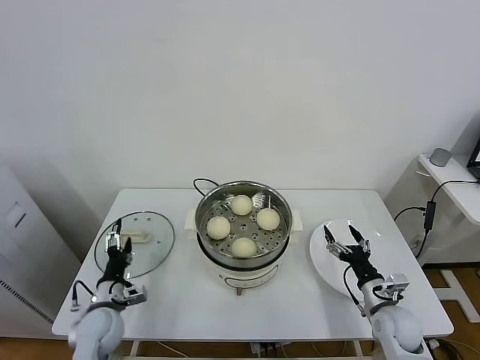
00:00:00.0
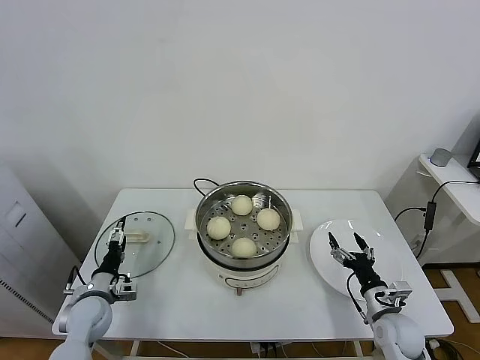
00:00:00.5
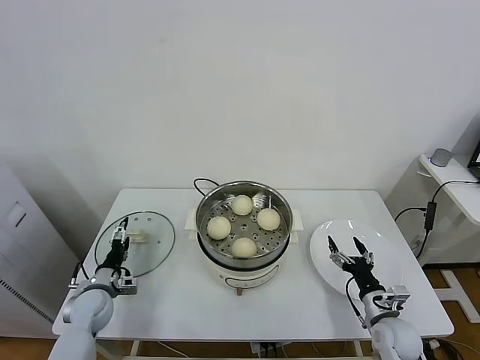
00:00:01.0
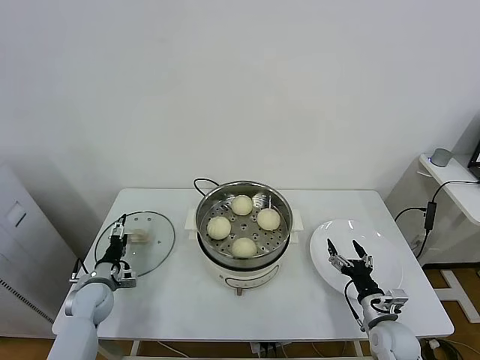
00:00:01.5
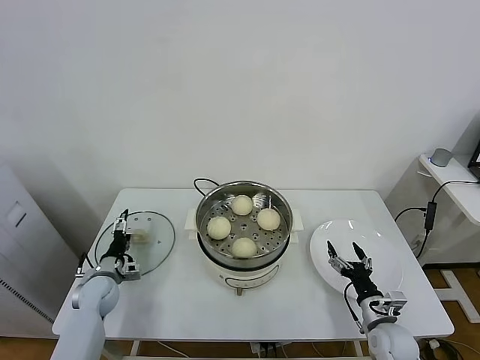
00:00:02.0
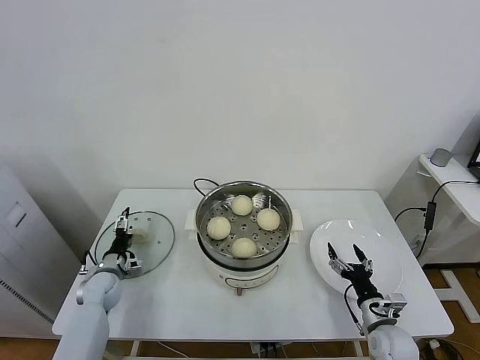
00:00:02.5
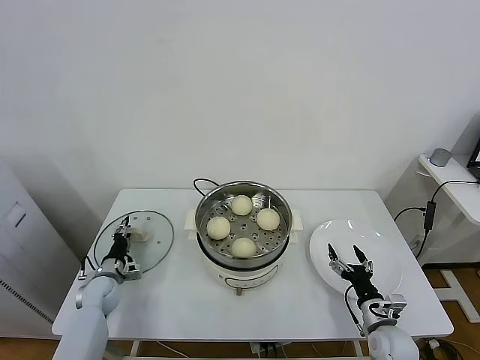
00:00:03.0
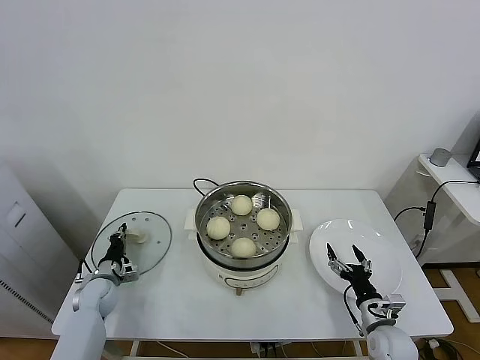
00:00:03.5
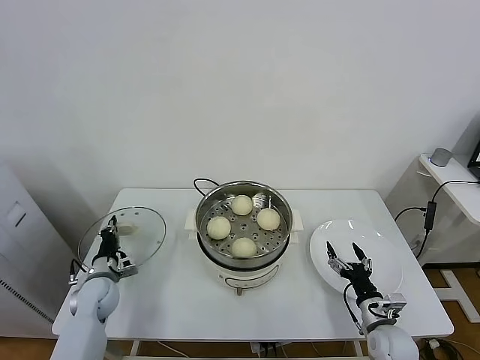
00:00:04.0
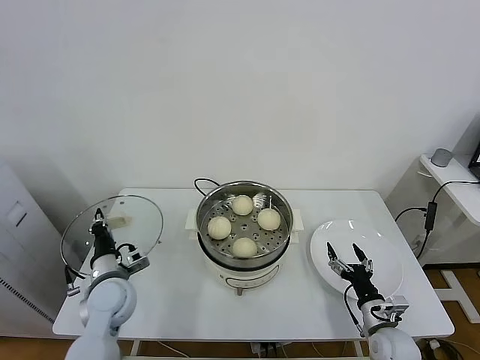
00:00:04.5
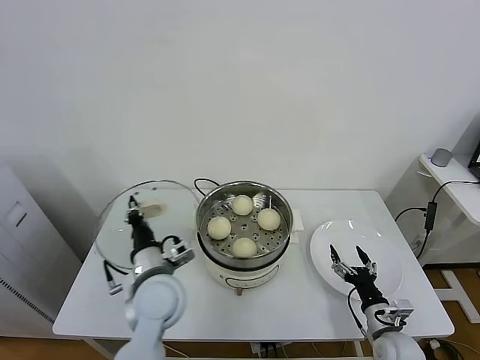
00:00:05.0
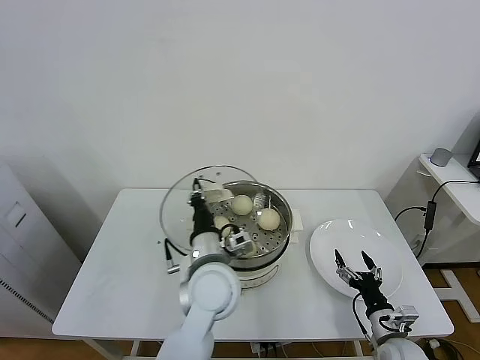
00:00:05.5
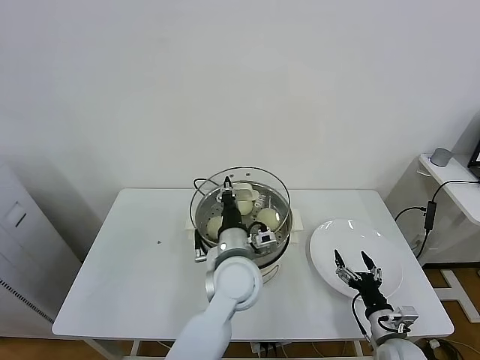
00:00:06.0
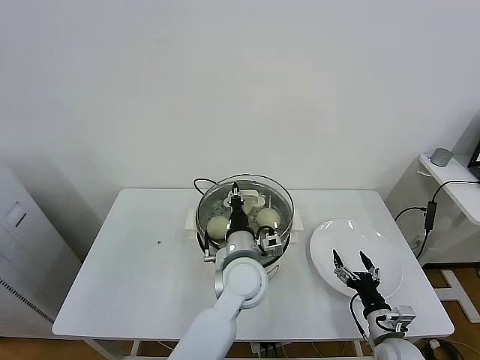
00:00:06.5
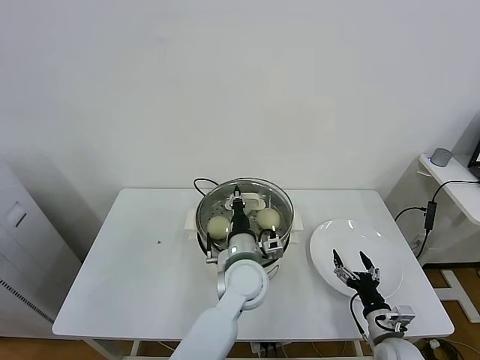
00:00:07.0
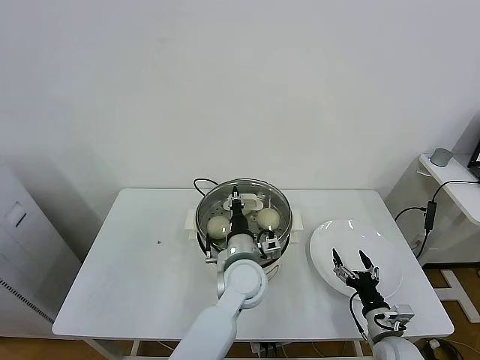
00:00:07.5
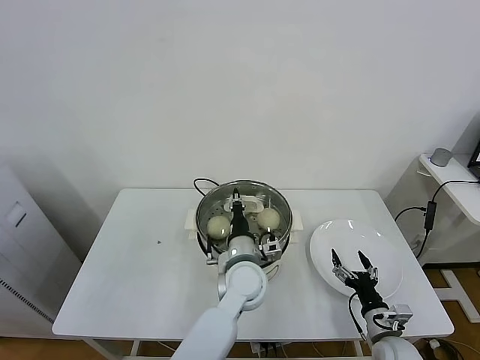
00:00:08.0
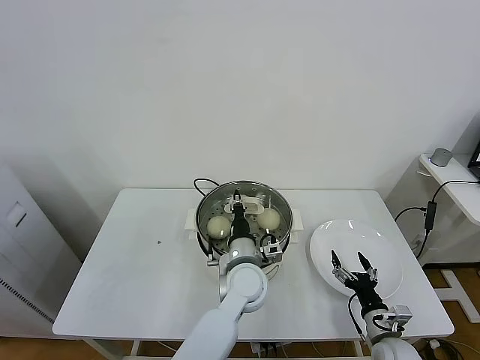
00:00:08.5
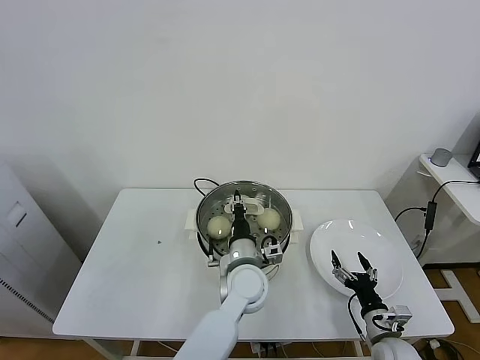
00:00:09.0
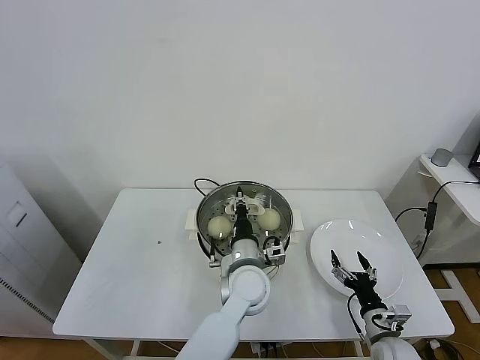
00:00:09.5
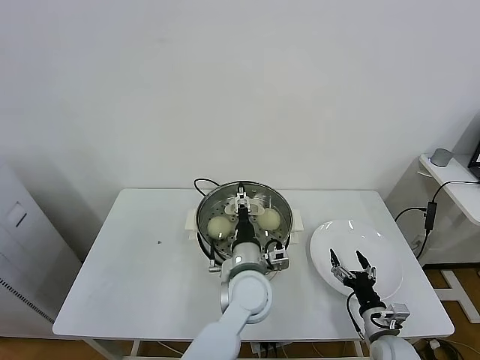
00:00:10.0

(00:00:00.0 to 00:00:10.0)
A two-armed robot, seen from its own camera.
Task of the whole recording: take steamed baozi put them in steamer.
Step, 00:00:00.0 - 00:00:03.0: Grasp the pot lid with left gripper.
Step, 00:00:04.0 - 00:00:09.5: Place the pot lid on the steamer with left gripper.
00:00:00.0 - 00:00:02.0: The left gripper moves forward and to the left, approximately 10 cm.
00:00:02.0 - 00:00:04.0: The left gripper closes up.
00:00:04.0 - 00:00:06.0: The left gripper heads to the right and upward, covering roughly 40 cm.
00:00:06.0 - 00:00:08.0: The left gripper travels downward by some 5 cm.
00:00:08.0 - 00:00:10.0: The left gripper opens.

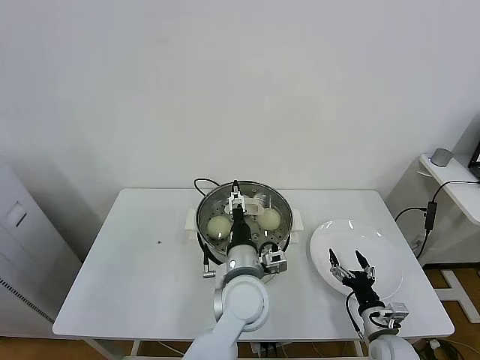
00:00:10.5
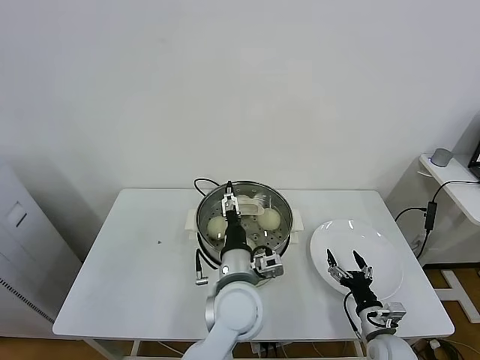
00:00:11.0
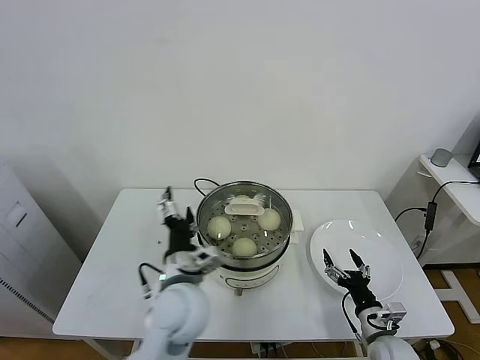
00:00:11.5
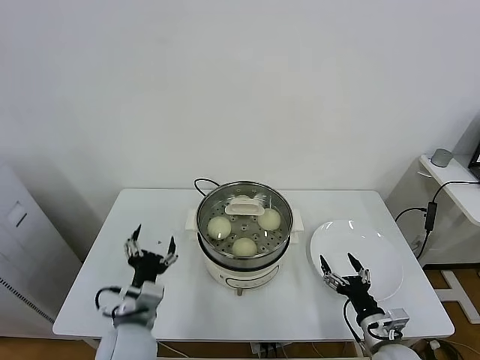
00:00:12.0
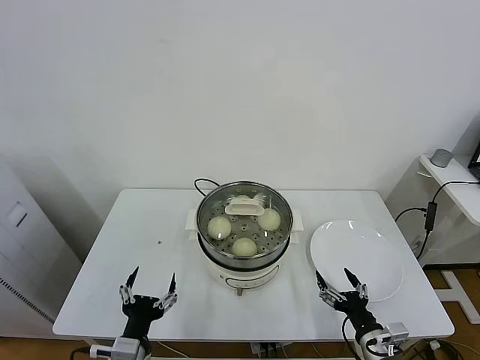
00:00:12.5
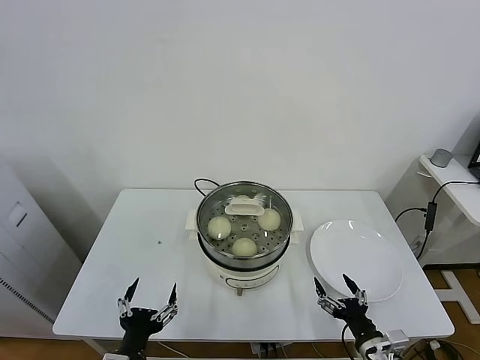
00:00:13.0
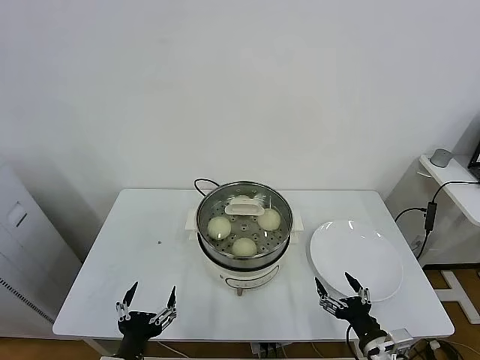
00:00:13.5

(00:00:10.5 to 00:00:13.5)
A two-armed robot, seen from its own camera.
Task of the whole recording: take steamed baozi put them in steamer.
00:00:10.5 - 00:00:12.0: The left gripper shifts approximately 20 cm to the left.
00:00:12.0 - 00:00:13.5: The left gripper goes about 15 cm backward; the right gripper travels backward by roughly 5 cm.

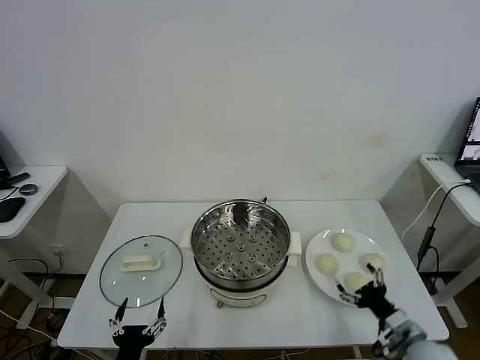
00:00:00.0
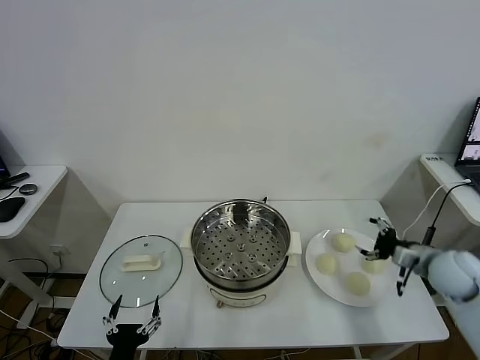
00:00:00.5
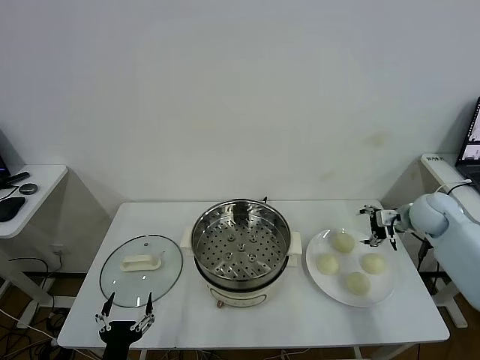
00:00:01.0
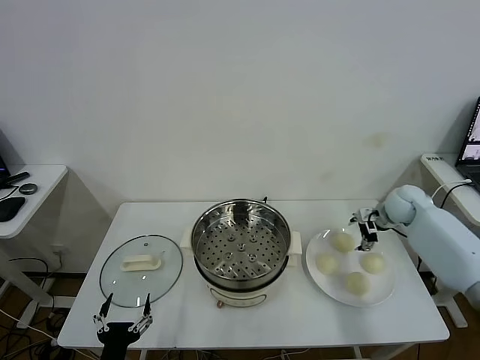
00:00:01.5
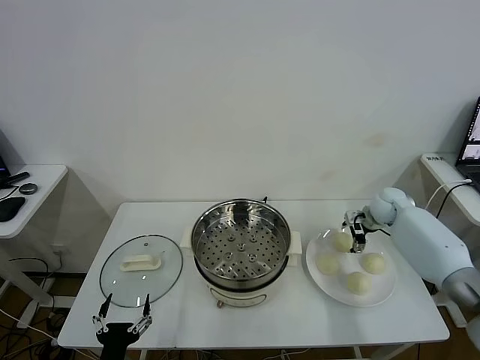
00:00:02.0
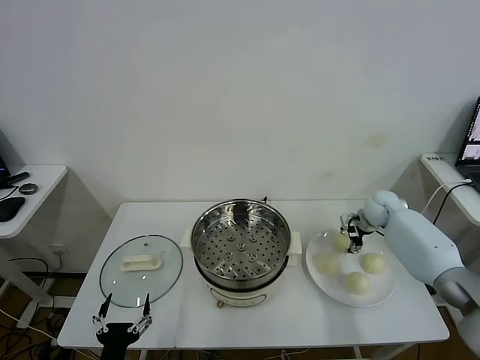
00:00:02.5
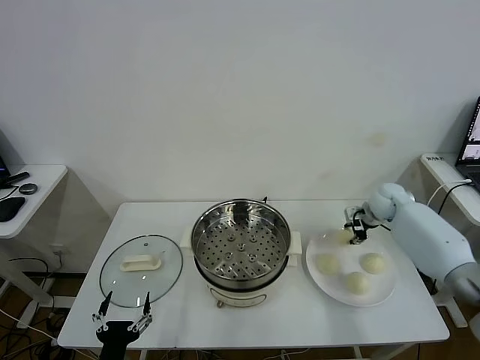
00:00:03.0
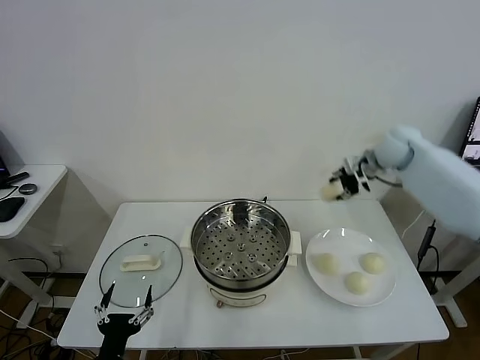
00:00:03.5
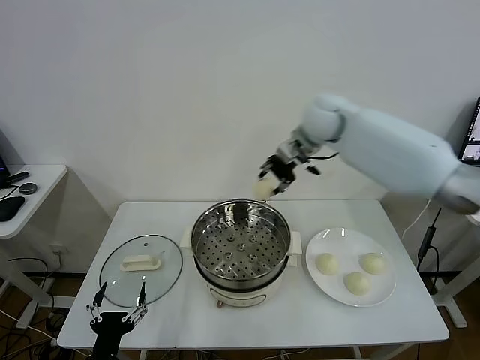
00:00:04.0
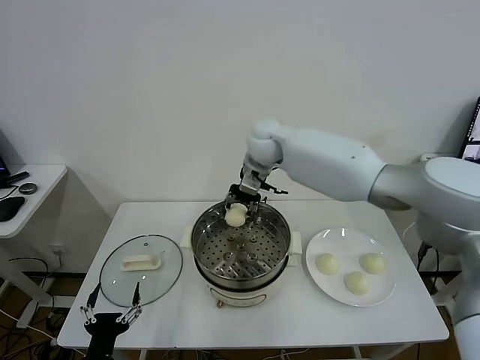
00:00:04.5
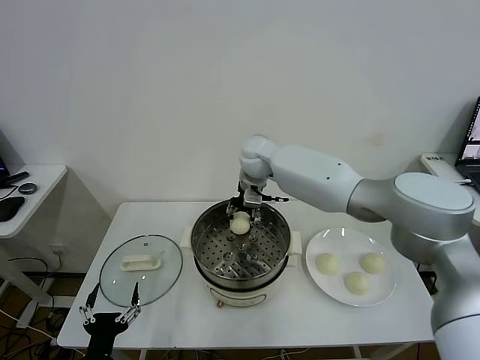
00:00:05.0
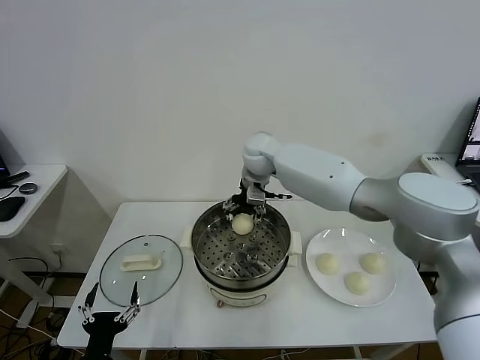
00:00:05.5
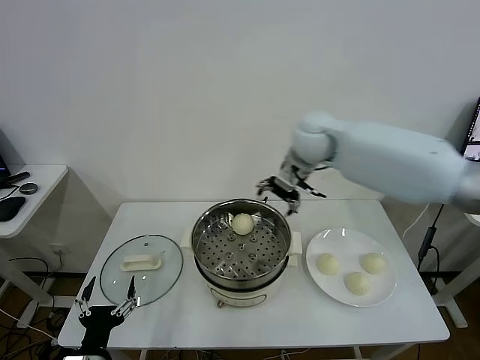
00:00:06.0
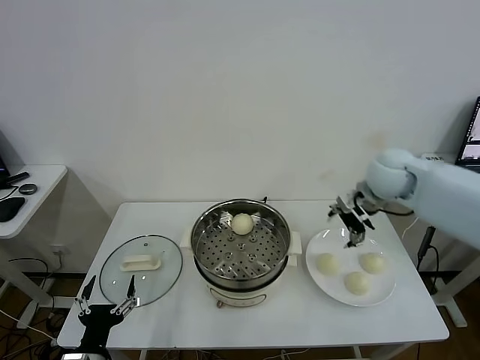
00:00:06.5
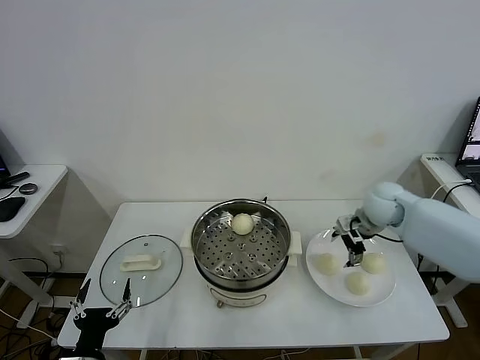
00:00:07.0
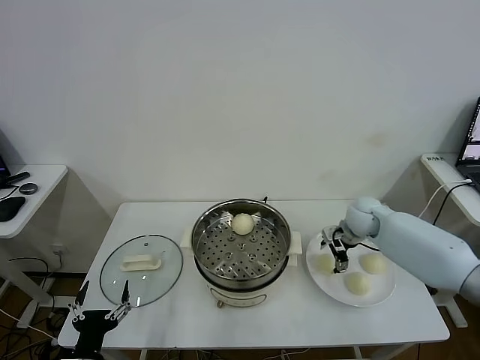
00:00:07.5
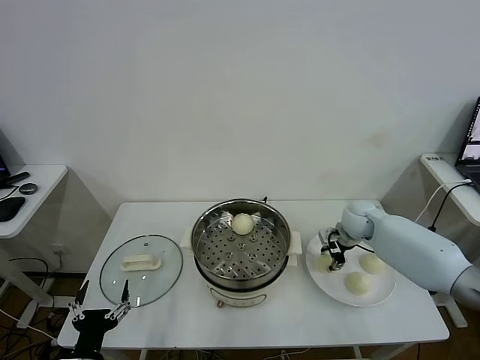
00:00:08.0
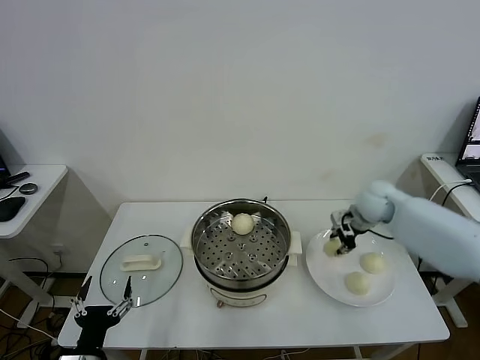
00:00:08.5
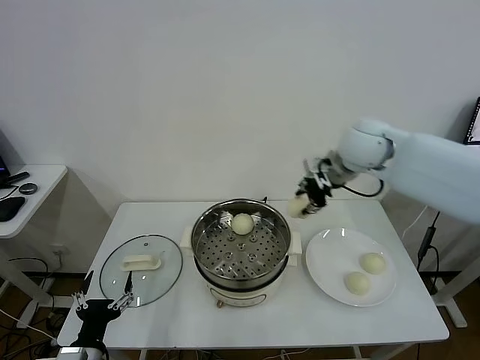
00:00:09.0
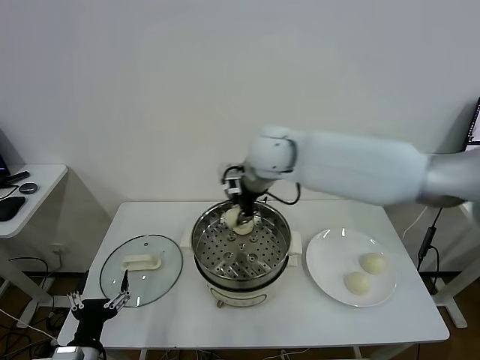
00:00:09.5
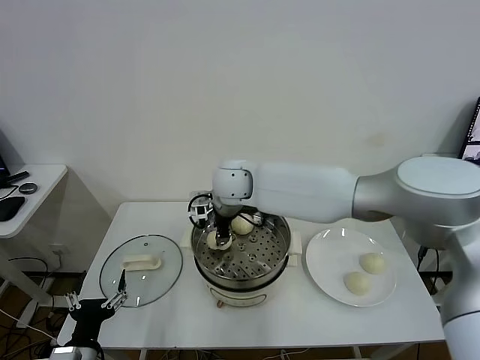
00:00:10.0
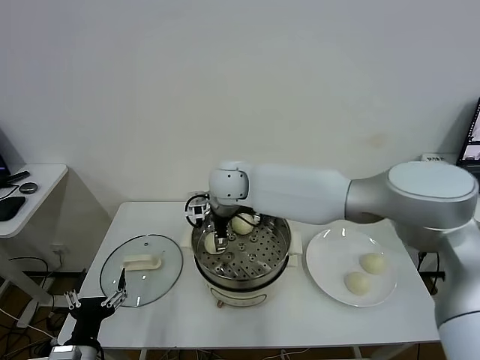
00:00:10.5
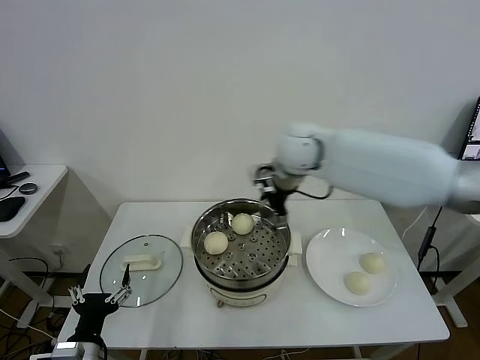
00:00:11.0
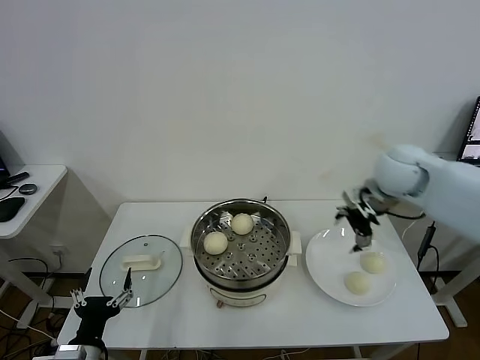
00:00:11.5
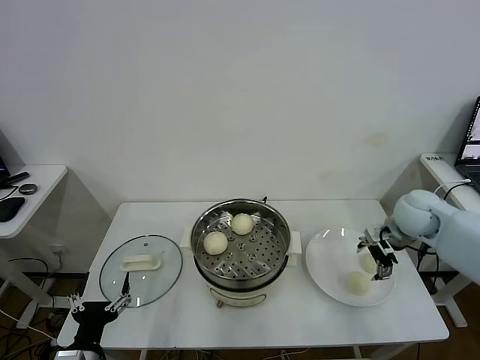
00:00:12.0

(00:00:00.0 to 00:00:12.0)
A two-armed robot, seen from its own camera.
Task of the whole recording: take steamed baozi put them in steamer.
Step, 00:00:00.0 - 00:00:02.5: Grasp the baozi in the plate with right gripper.
Step, 00:00:03.0 - 00:00:05.5: Place the baozi on the steamer with right gripper.
Step, 00:00:06.0 - 00:00:08.0: Grasp the baozi in the plate with right gripper.
Step, 00:00:08.5 - 00:00:10.5: Place the baozi on the steamer with right gripper.
00:00:02.0 - 00:00:04.0: The right gripper goes approximately 35 cm to the left and upward, and closes.
00:00:04.0 - 00:00:06.0: The right gripper reaches about 10 cm to the left, then returns, and opens its fingers.
00:00:06.0 - 00:00:08.0: The right gripper travels downward and to the right by roughly 25 cm, and closes.
00:00:08.0 - 00:00:10.0: The right gripper goes about 35 cm to the left and upward.
00:00:10.0 - 00:00:12.0: The right gripper goes roughly 40 cm to the right, and opens.
